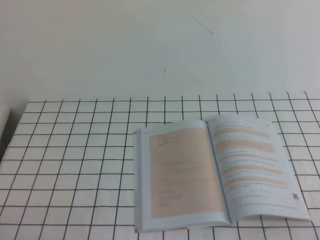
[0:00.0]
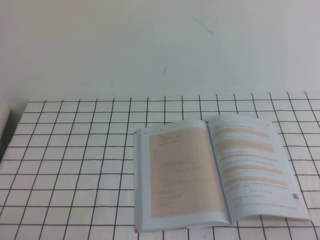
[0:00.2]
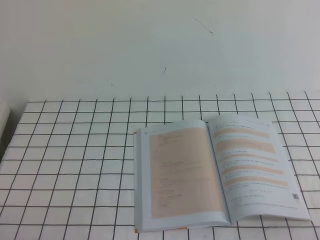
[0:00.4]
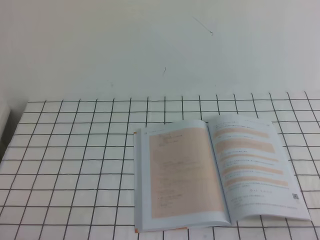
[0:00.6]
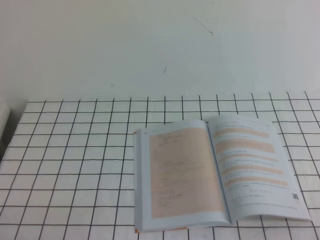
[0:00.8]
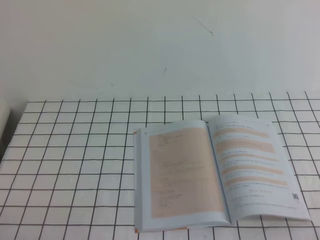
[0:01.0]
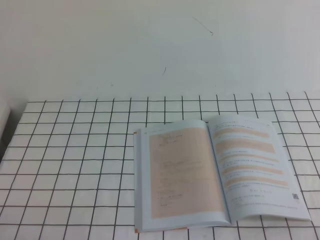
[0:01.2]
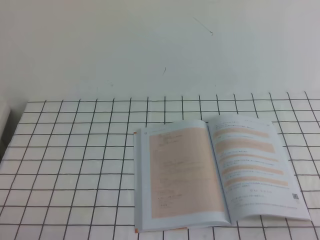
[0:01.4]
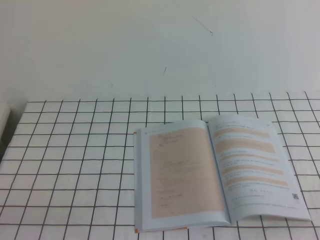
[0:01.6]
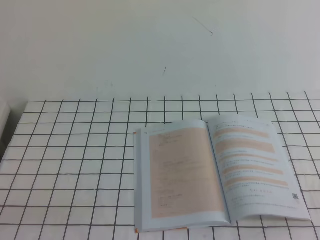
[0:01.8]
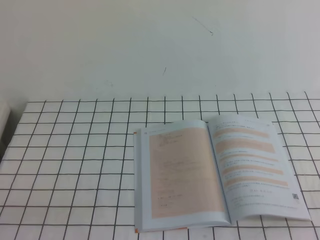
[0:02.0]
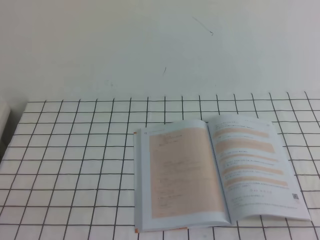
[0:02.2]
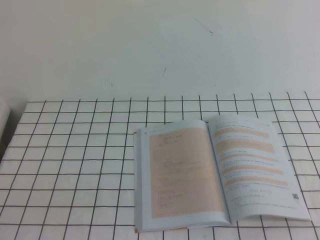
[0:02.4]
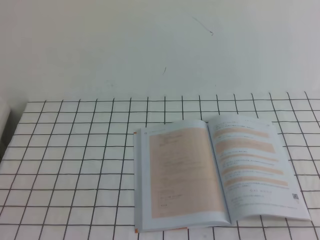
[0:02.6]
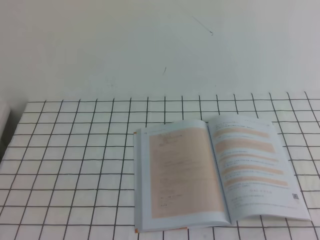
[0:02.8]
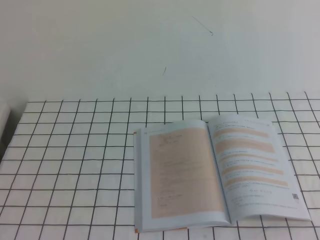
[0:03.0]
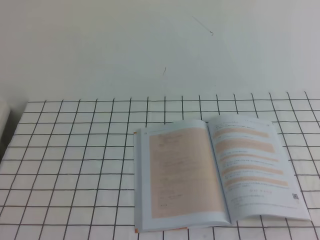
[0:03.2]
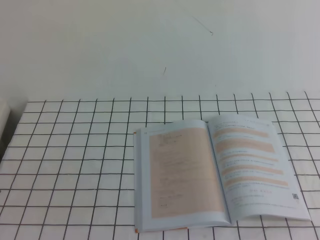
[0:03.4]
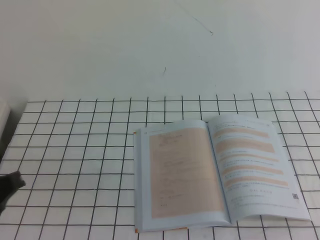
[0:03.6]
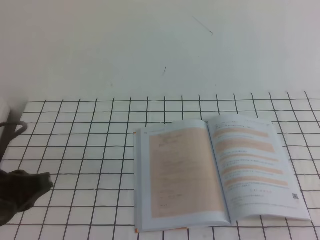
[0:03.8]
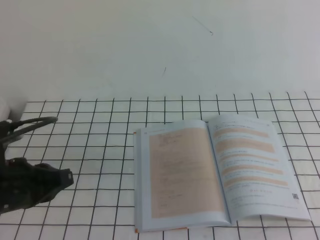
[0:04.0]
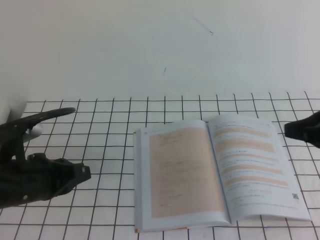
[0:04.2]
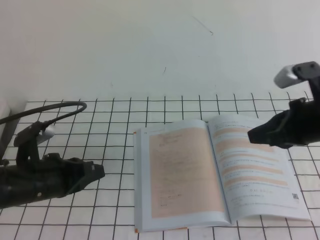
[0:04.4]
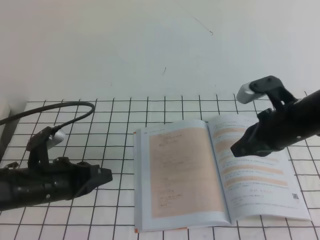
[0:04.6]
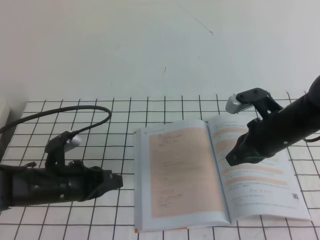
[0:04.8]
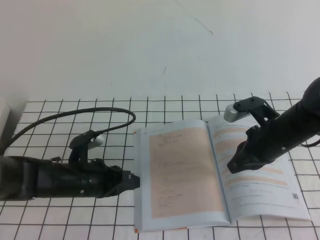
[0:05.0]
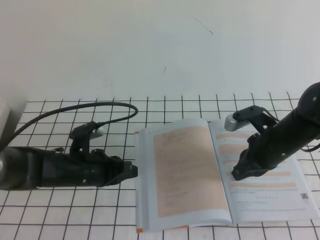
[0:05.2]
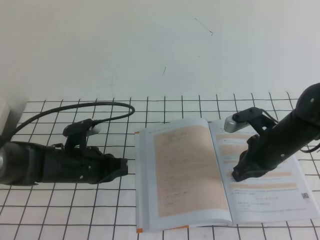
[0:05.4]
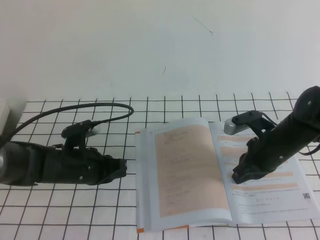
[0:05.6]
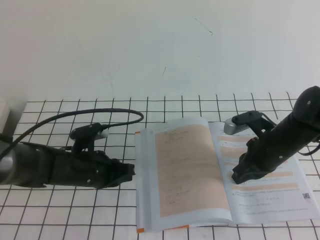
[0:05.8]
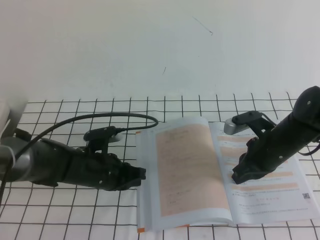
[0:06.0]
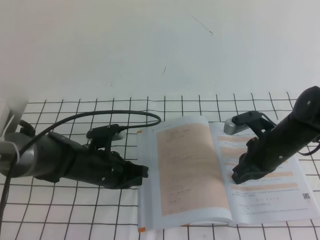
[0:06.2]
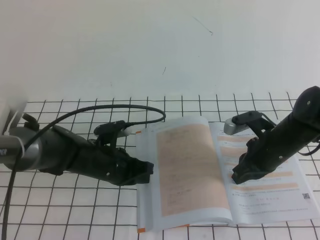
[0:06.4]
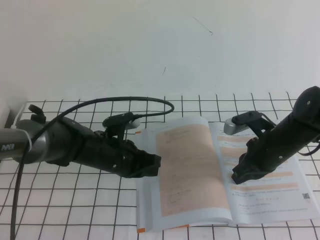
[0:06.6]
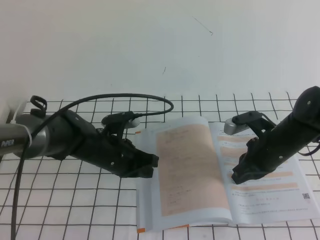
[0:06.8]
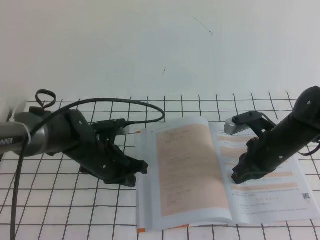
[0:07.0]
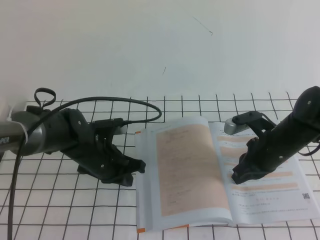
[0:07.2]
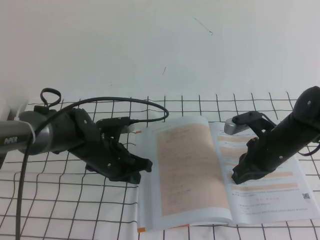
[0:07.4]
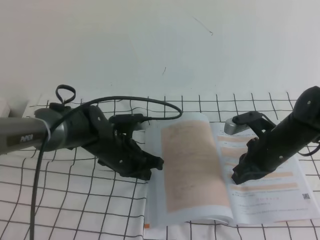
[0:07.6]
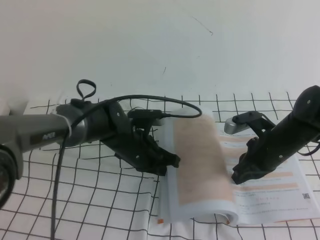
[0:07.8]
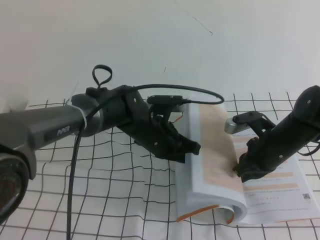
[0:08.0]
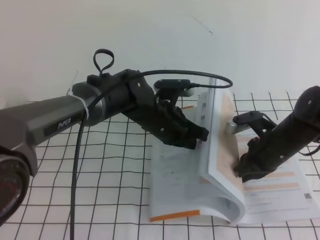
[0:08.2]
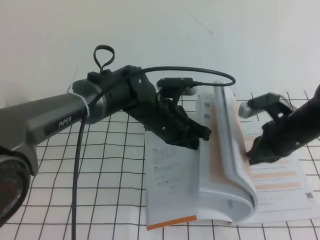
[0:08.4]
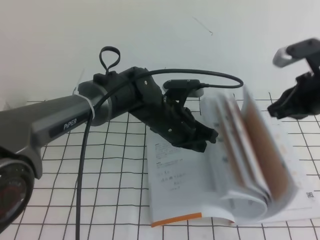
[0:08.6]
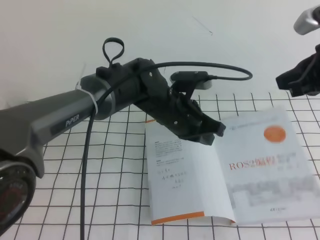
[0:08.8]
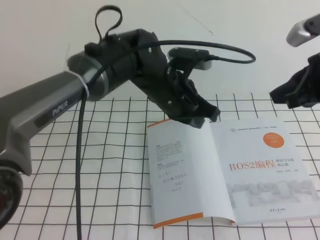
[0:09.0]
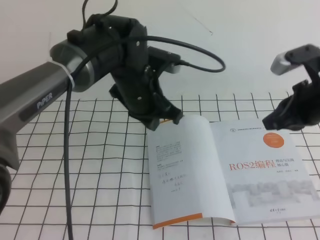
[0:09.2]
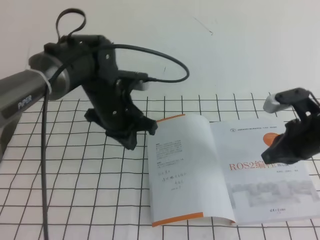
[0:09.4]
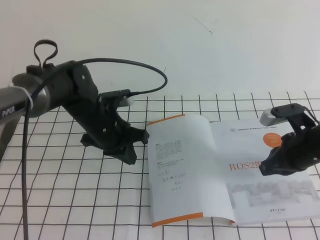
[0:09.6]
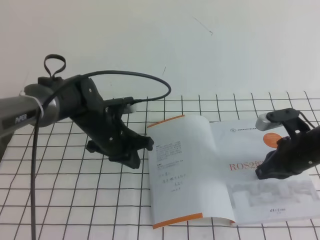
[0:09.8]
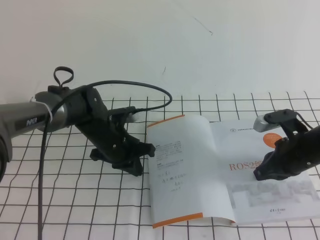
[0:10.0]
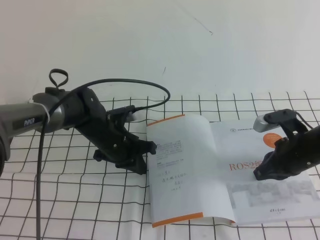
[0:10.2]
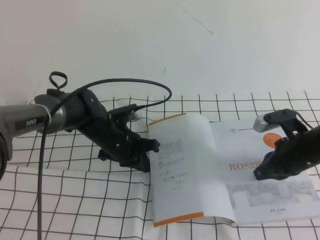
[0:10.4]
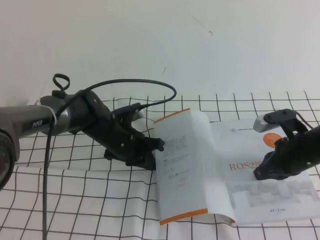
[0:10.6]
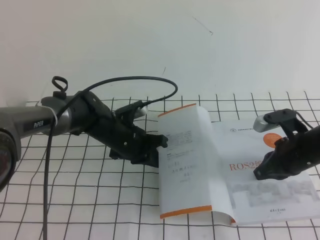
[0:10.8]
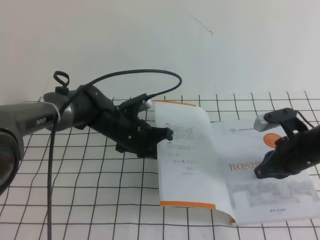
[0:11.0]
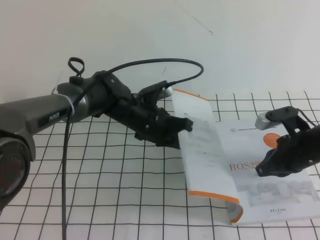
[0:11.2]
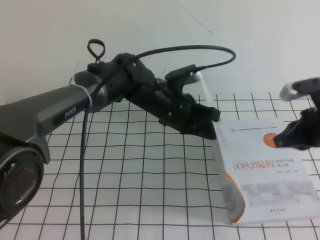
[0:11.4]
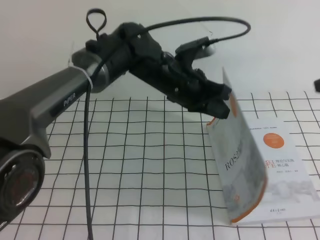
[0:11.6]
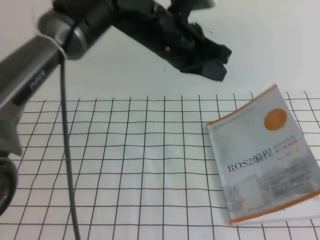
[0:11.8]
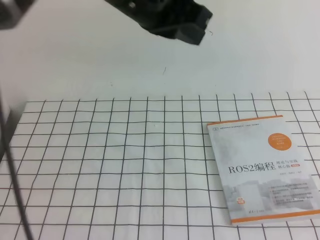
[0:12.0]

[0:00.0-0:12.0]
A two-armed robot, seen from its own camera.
Task of the whole recording: on the white tablecloth, hold the book with one hand and close it with the other.
0:03.0 to 0:04.4: The grippers both shift forward and downward by some 30 cm.
0:04.4 to 0:06.0: The right gripper travels downward and forward by approximately 15 cm; the left gripper heads forward, downward and to the right, covering roughly 15 cm.
0:06.0 to 0:07.6: The left gripper shifts approximately 5 cm to the right.
0:07.6 to 0:09.0: The left gripper goes approximately 15 cm upward and to the right. Meanwhile the right gripper is displaced upward by about 20 cm.
0:09.0 to 0:10.4: The left gripper moves downward and to the left, about 15 cm; the right gripper heads downward, covering roughly 15 cm.
0:10.4 to 0:12.0: The left gripper is displaced upward by roughly 30 cm. Meanwhile the right gripper goes about 30 cm upward and backward.

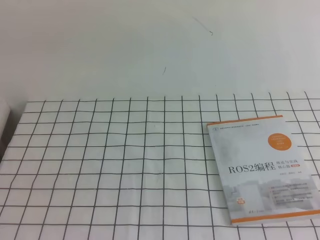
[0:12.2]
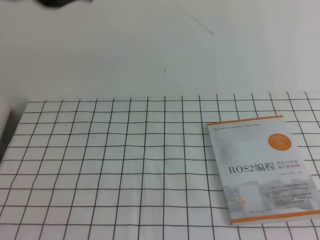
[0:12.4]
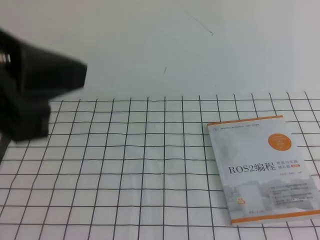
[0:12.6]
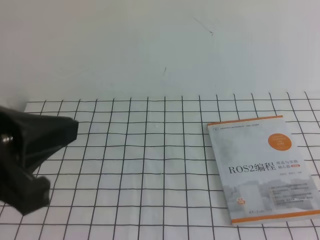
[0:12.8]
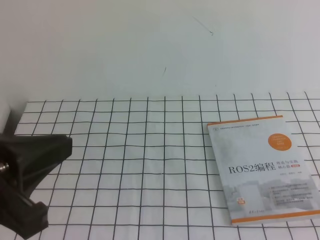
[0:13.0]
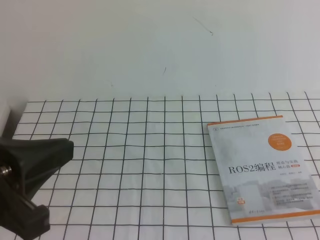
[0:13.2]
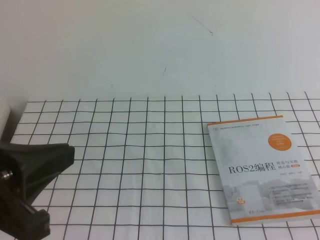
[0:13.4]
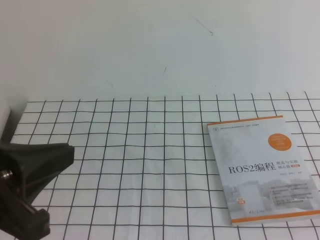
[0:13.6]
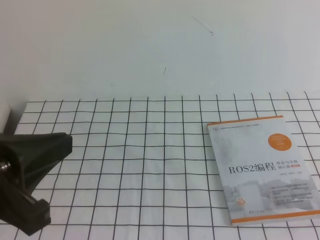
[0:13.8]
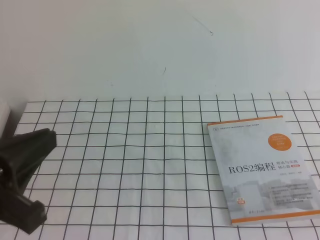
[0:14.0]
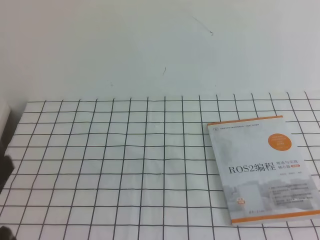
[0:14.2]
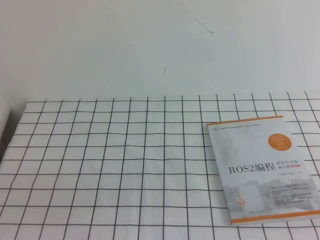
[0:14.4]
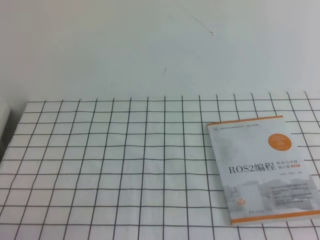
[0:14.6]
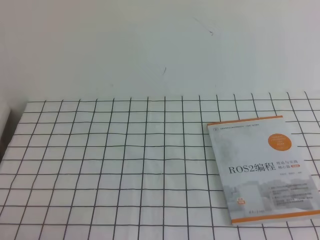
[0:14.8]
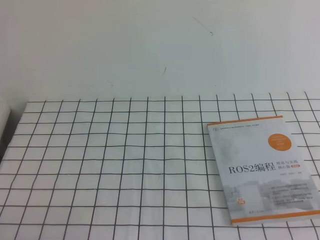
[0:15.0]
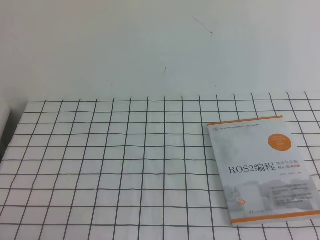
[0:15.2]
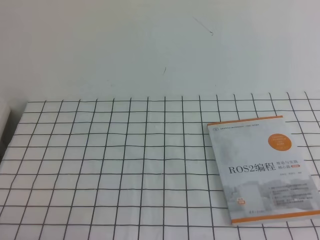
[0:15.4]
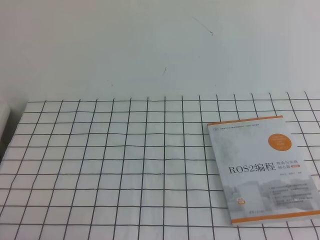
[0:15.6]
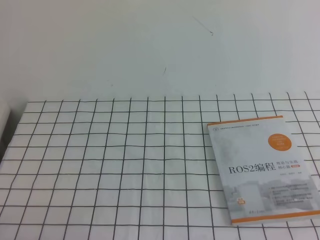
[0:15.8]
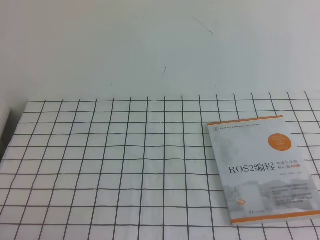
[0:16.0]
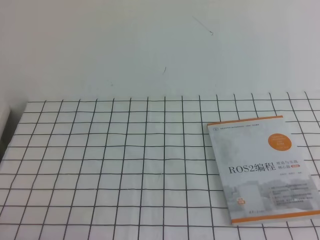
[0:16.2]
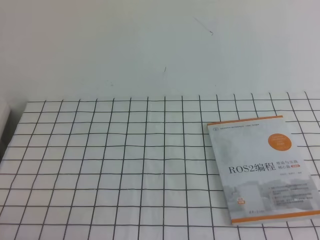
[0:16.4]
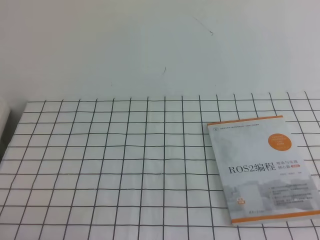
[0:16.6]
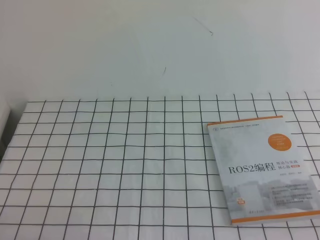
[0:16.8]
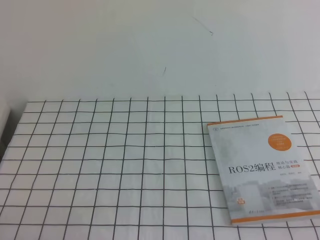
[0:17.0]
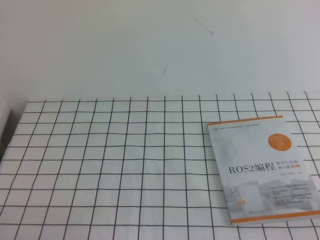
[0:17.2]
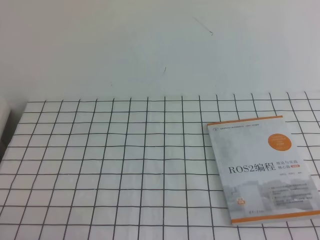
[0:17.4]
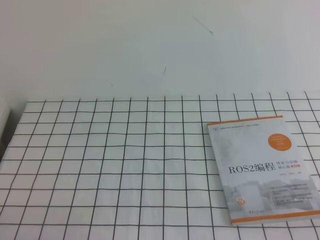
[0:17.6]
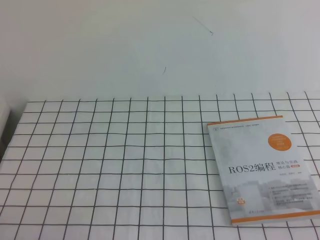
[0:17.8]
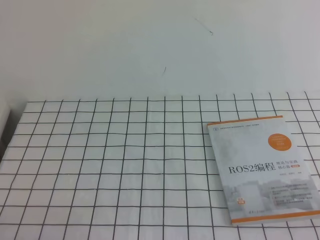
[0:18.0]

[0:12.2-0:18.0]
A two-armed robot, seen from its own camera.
Task of the whole recording: on the white tablecloth, hold the book with one hand and close it with the other.
Step, 0:12.2 to 0:18.0: Close the open book.
0:12.2 to 0:13.6: The left gripper shifts about 25 cm backward, downward and to the left.
0:13.6 to 0:15.0: The left gripper moves downward, approximately 20 cm.

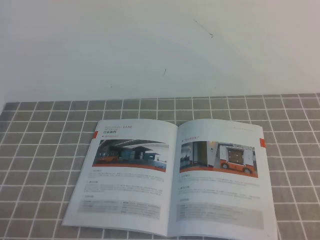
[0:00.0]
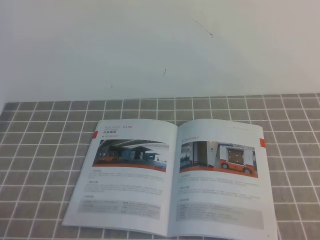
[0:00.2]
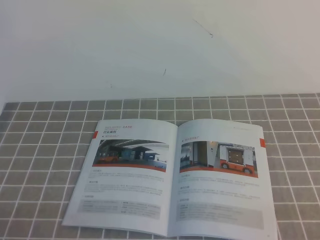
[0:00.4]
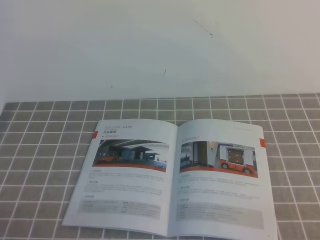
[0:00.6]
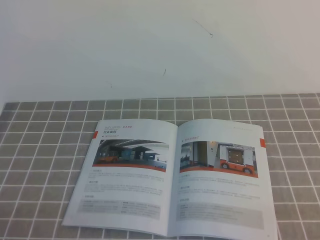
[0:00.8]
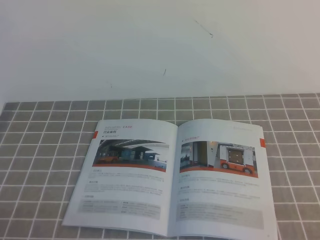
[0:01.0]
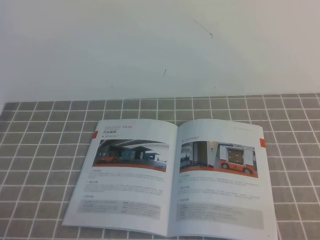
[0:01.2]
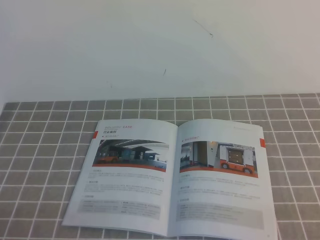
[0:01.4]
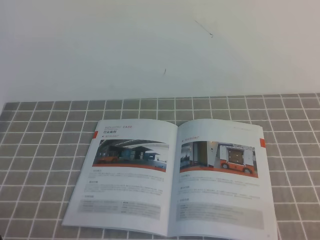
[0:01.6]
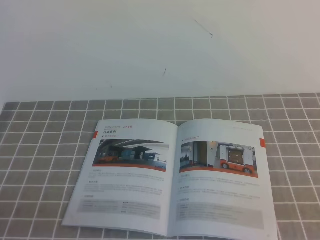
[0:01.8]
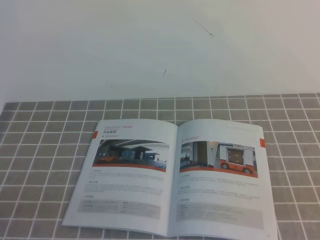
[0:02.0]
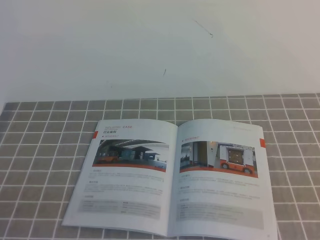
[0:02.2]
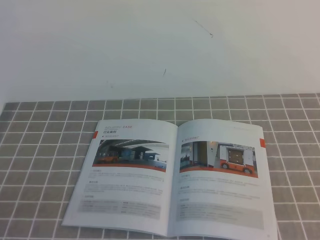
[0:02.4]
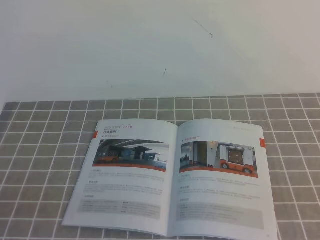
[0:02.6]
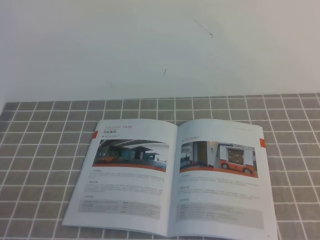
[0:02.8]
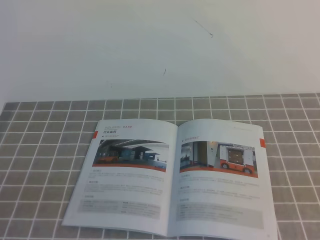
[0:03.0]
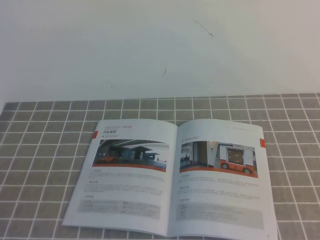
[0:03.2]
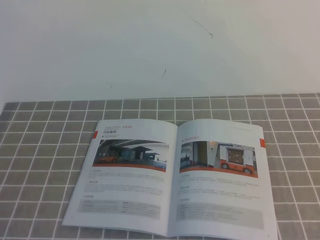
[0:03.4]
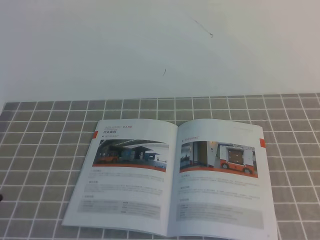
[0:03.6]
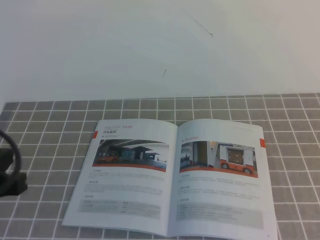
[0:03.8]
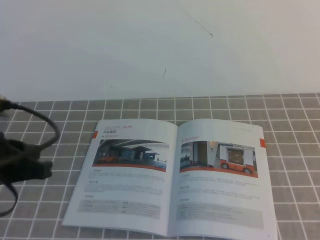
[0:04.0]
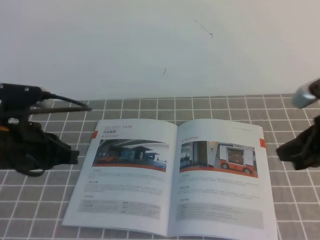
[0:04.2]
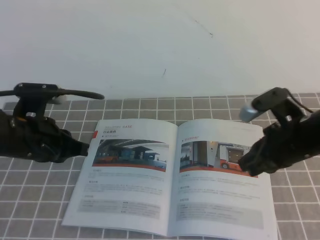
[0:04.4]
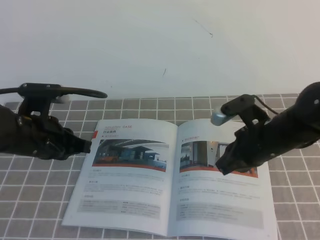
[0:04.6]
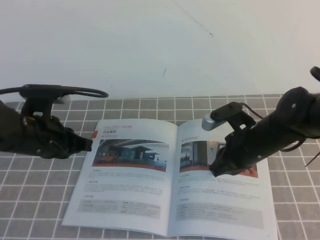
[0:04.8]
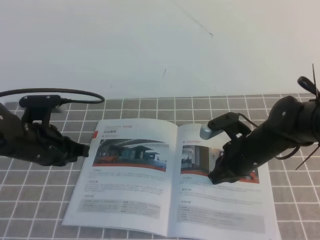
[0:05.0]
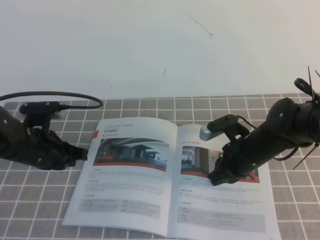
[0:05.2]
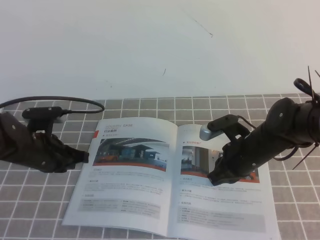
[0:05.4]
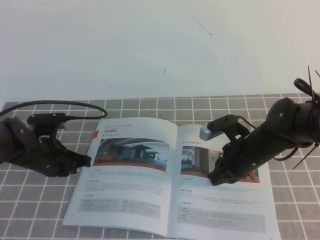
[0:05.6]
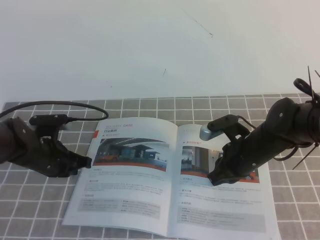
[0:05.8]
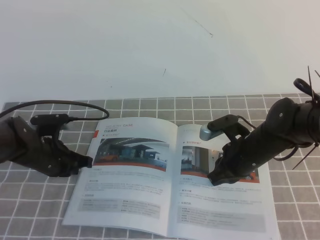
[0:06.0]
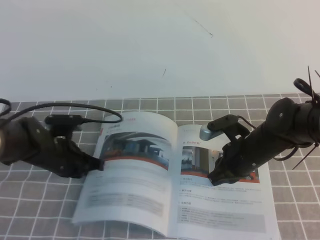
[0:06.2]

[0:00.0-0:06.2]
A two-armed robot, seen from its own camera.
Task of the whole recording: on the grey tablecloth, hold the book with one hand and close it with the other.
0:03.2 to 0:04.6: The right gripper goes approximately 30 cm forward and to the left; the left gripper is displaced forward by some 25 cm.
0:04.6 to 0:06.2: The right gripper is displaced downward by some 10 cm. The left gripper travels downward and forward by about 10 cm.
